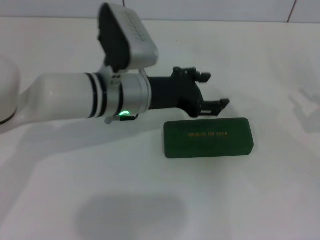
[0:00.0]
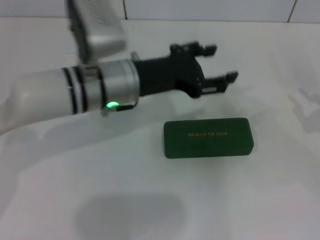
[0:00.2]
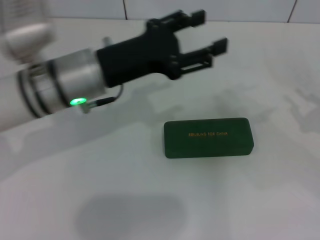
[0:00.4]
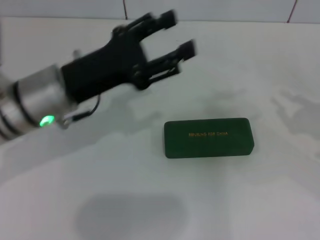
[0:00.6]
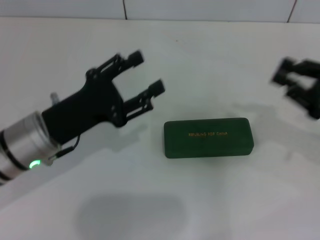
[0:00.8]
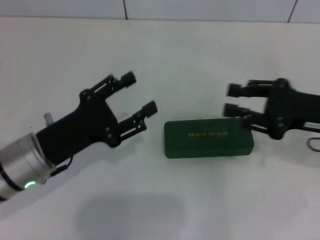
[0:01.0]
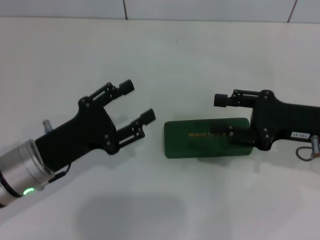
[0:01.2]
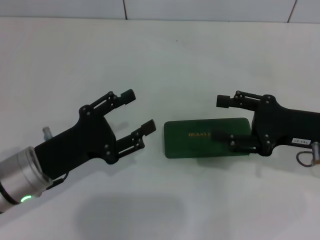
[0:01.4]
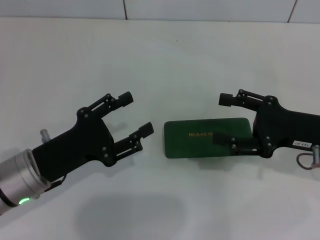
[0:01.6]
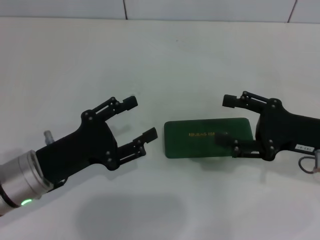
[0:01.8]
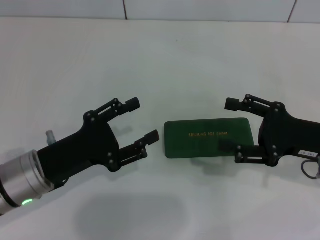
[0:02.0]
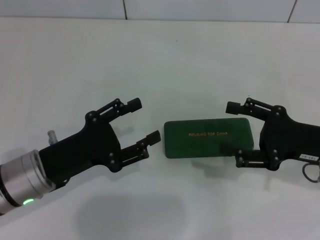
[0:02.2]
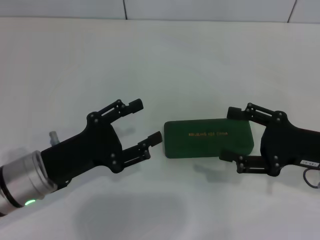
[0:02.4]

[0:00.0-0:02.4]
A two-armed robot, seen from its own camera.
0:00.0 to 0:01.2: The left gripper heads to the left, backward and downward, covering about 15 cm, while the right gripper shifts some 10 cm to the left.
0:01.2 to 0:02.4: The right gripper opens up.

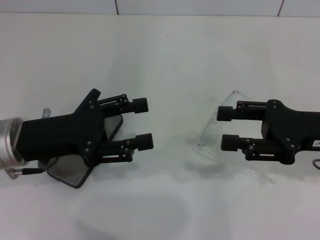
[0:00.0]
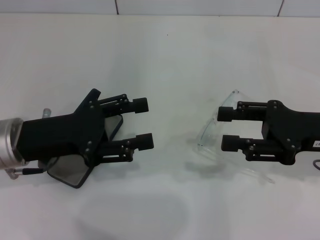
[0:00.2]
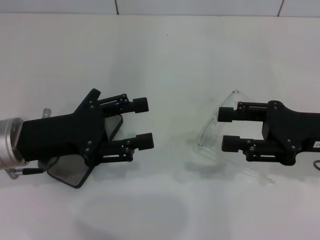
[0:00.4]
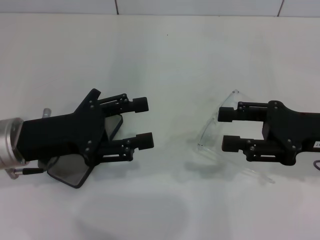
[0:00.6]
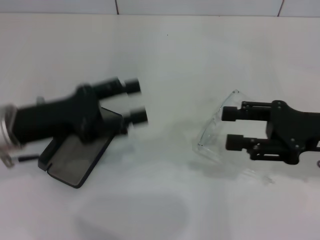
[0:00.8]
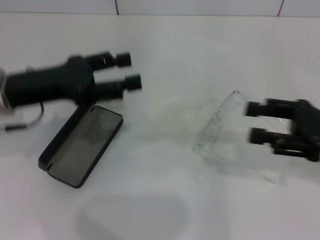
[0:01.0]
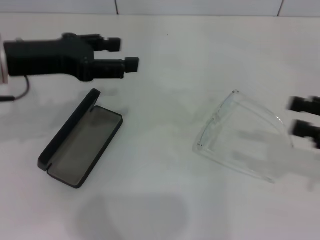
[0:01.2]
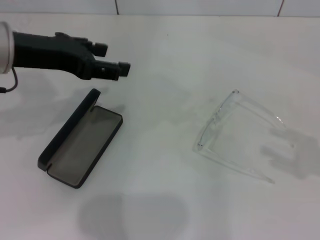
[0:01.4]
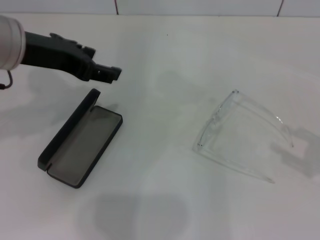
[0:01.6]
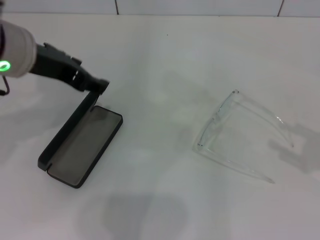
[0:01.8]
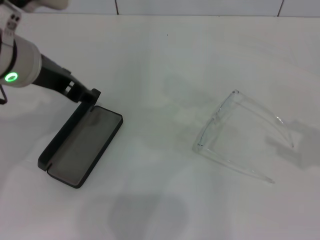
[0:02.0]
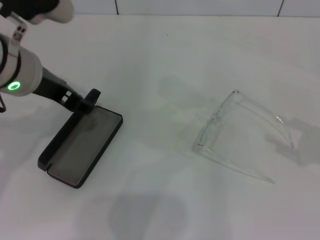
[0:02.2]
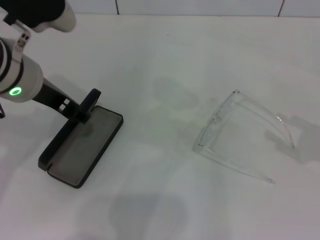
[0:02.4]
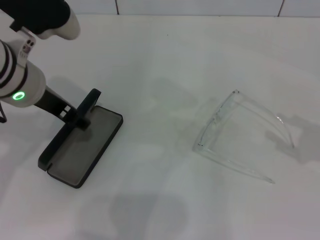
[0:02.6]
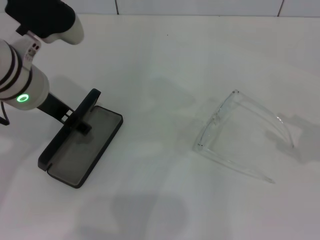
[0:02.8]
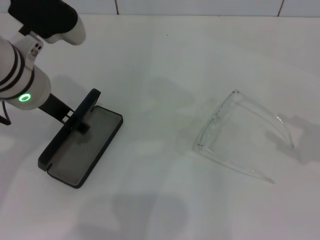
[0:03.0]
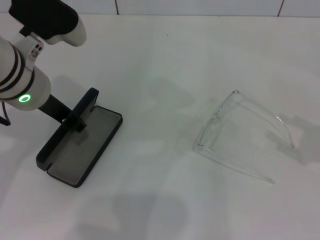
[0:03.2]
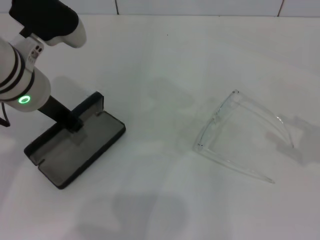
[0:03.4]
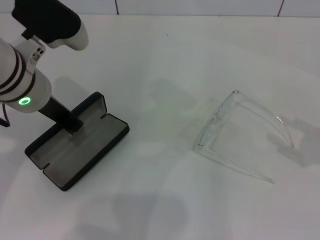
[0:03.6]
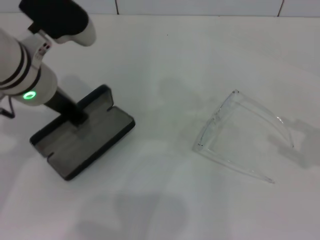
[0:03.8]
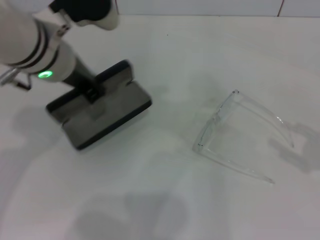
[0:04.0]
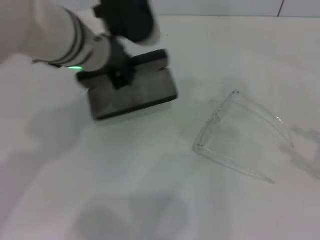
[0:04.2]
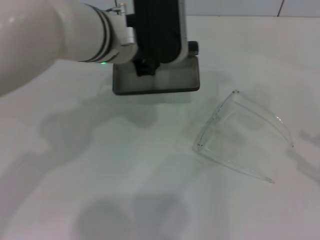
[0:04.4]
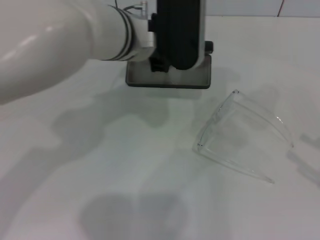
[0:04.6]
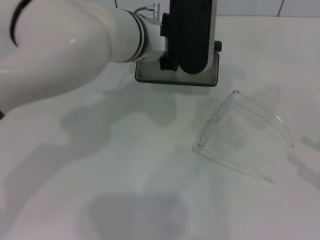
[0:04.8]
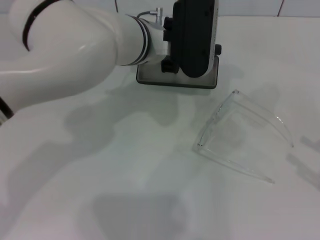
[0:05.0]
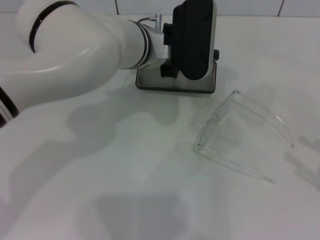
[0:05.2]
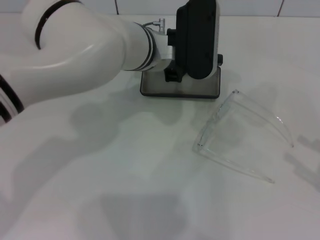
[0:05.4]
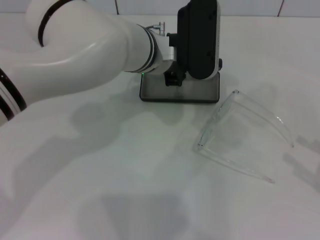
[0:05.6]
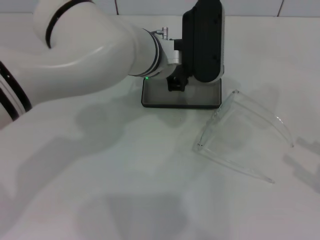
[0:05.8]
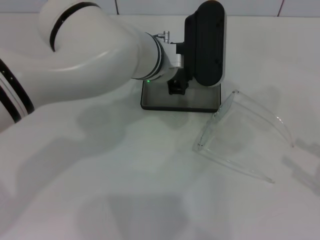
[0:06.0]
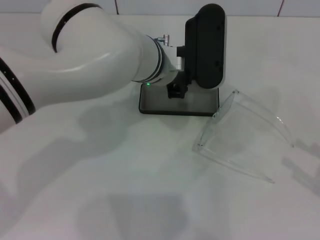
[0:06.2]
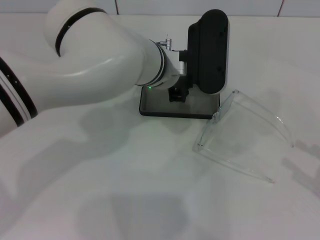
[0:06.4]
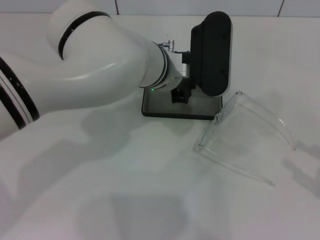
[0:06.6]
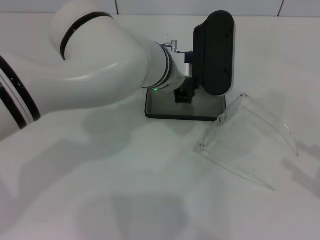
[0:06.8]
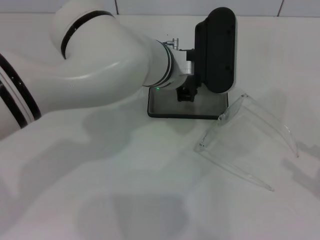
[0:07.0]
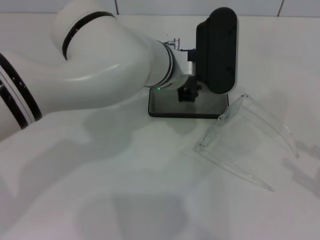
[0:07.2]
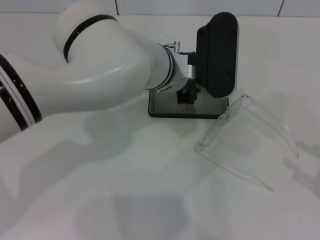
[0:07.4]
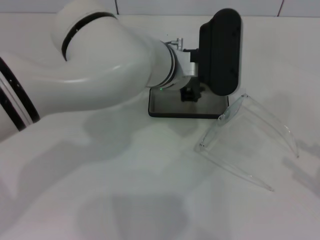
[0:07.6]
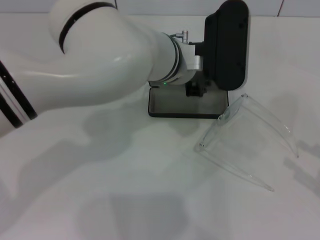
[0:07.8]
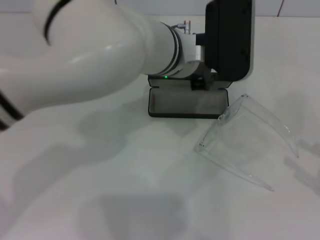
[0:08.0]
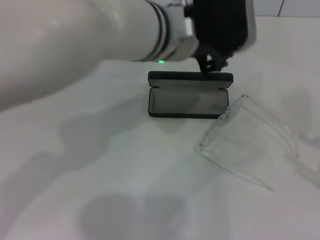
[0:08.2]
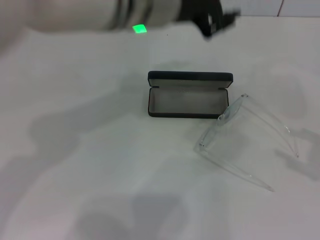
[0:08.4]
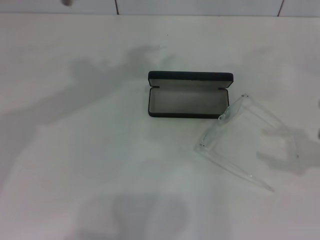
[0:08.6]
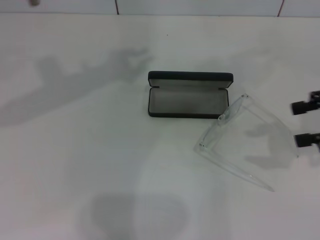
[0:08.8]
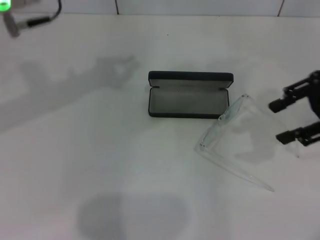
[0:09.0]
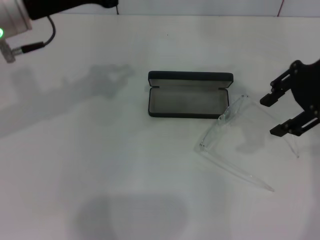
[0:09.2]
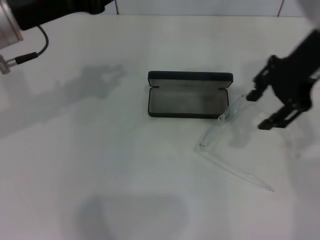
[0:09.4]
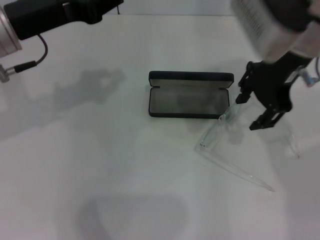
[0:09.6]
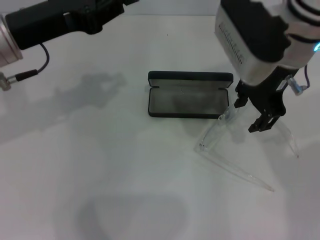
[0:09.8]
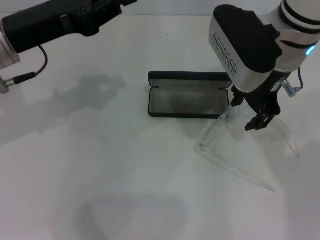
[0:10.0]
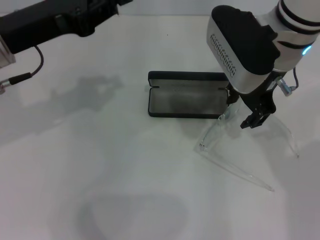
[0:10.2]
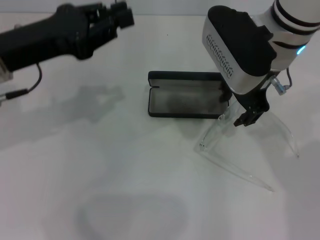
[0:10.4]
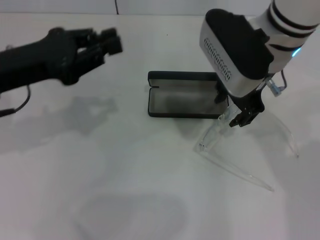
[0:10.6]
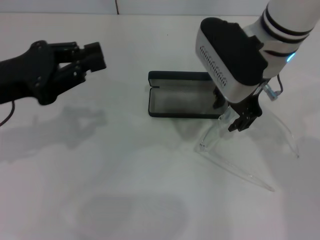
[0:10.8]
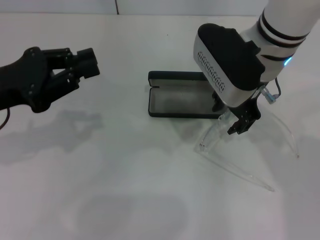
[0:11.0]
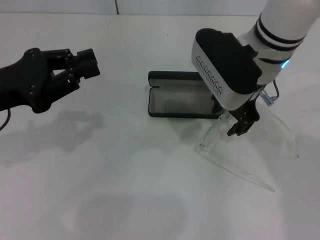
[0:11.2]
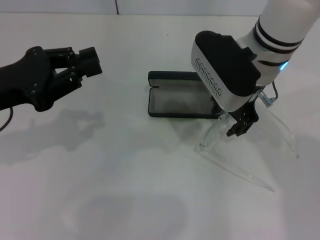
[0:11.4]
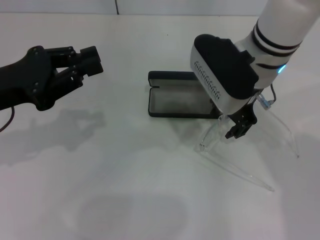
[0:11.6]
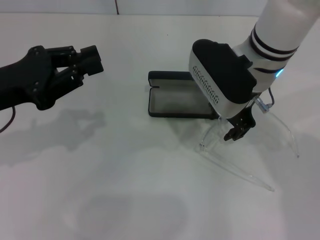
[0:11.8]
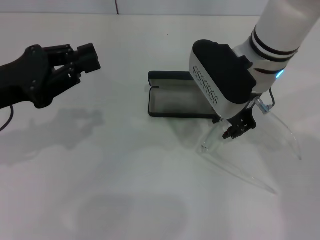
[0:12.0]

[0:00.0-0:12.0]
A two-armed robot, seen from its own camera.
Step, 0:00.0 to 0:03.2: Grab the glasses case with your left hand.
Step, 0:03.4 to 0:07.4: Place the glasses case in the center of the table with your left hand.
0:00.0 to 0:01.6: The left gripper travels upward and forward by some 15 cm, while the right gripper shifts roughly 15 cm to the right and backward.
0:01.6 to 0:03.0: The left gripper is displaced downward by about 5 cm.
0:03.0 to 0:04.4: The right gripper moves backward, some 5 cm. Meanwhile the left gripper travels to the right by approximately 10 cm, and closes.
0:04.4 to 0:06.0: The left gripper shifts roughly 10 cm downward and to the right.
0:06.0 to 0:07.6: The grippers stay close to where they were, moving slightly.
0:07.6 to 0:09.0: The left gripper shifts about 20 cm to the left and upward; the right gripper heads forward, upward and to the left, covering approximately 25 cm.
0:09.0 to 0:10.4: The left gripper travels downward by roughly 5 cm; the right gripper is displaced to the left by approximately 15 cm.
0:10.4 to 0:12.0: The left gripper changes place by some 5 cm.

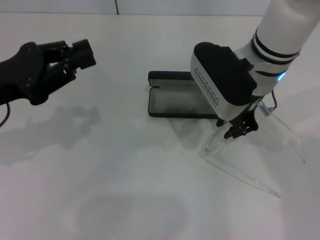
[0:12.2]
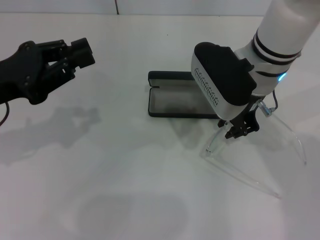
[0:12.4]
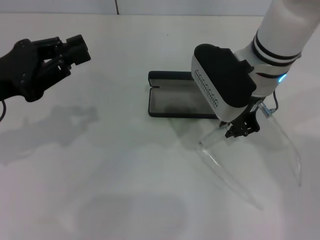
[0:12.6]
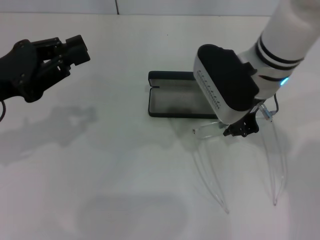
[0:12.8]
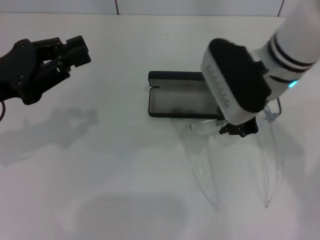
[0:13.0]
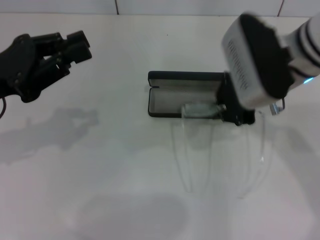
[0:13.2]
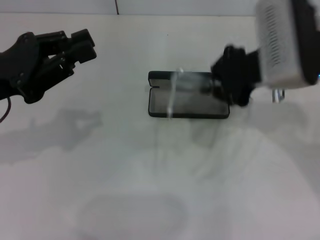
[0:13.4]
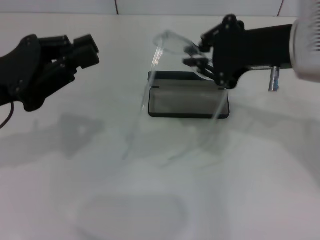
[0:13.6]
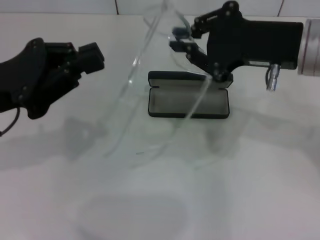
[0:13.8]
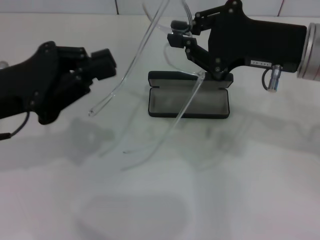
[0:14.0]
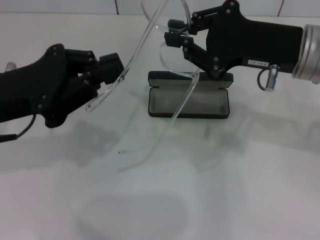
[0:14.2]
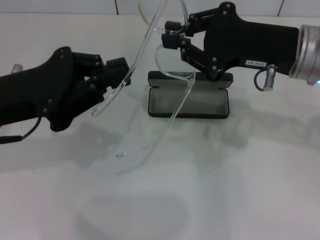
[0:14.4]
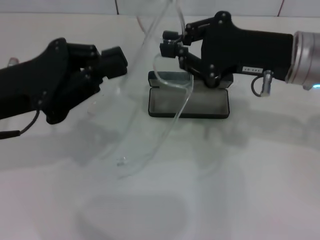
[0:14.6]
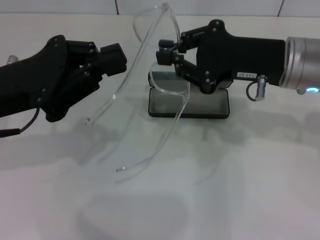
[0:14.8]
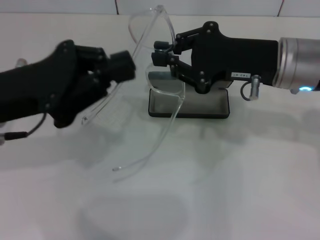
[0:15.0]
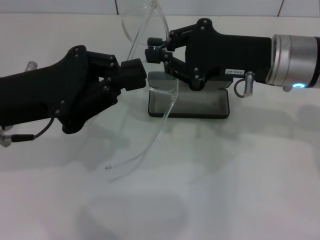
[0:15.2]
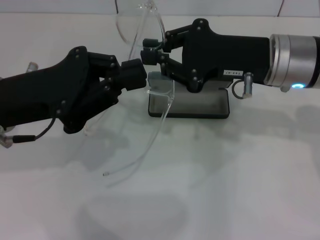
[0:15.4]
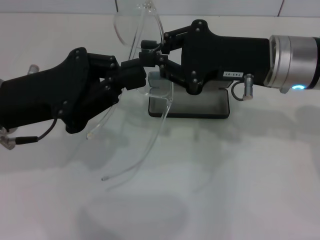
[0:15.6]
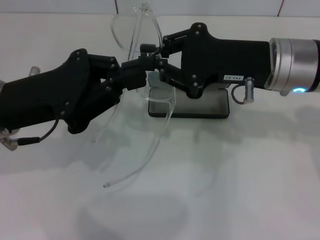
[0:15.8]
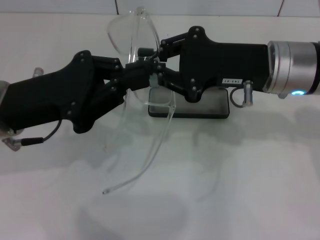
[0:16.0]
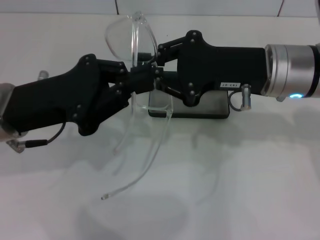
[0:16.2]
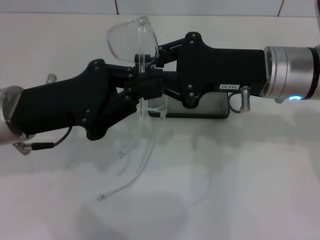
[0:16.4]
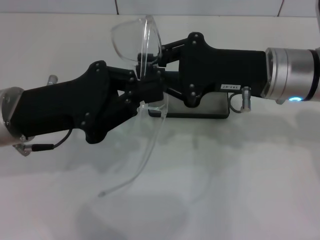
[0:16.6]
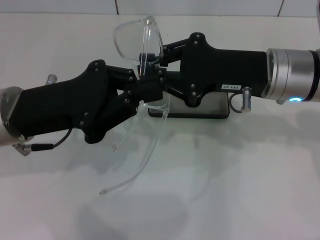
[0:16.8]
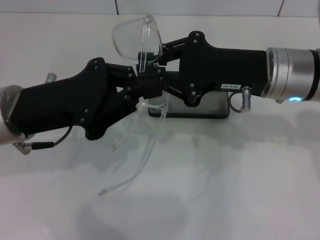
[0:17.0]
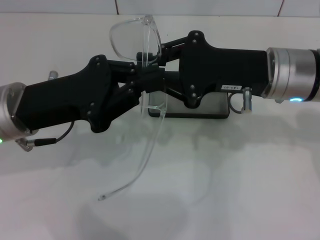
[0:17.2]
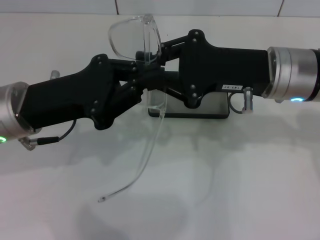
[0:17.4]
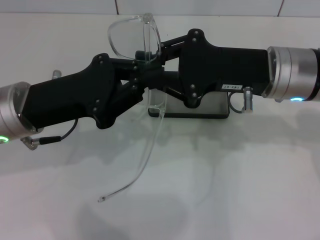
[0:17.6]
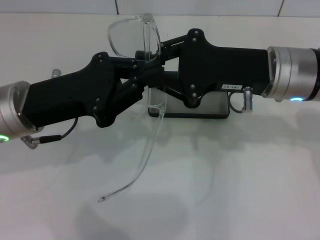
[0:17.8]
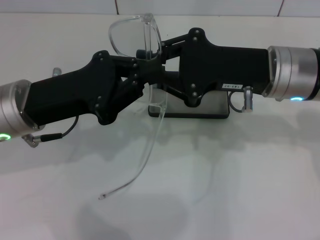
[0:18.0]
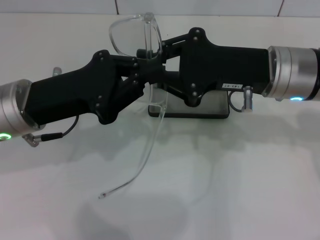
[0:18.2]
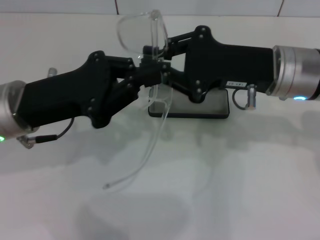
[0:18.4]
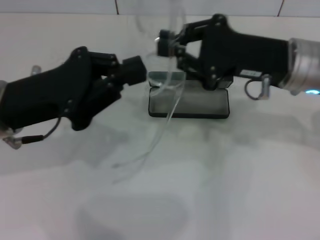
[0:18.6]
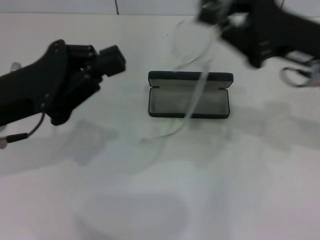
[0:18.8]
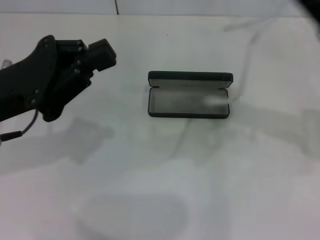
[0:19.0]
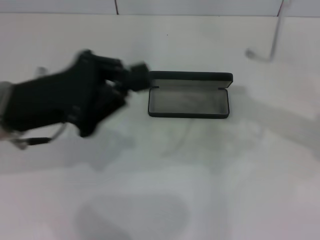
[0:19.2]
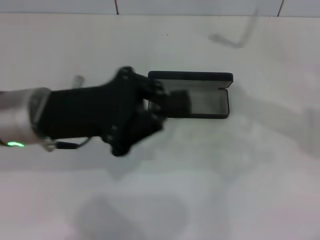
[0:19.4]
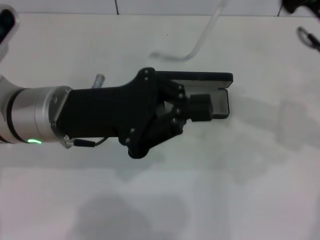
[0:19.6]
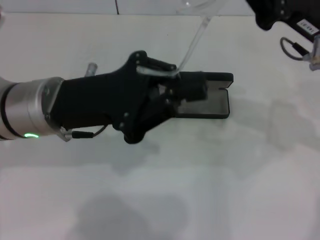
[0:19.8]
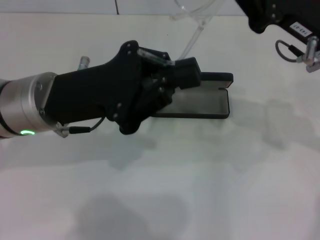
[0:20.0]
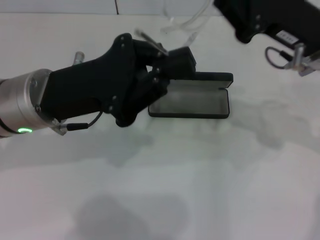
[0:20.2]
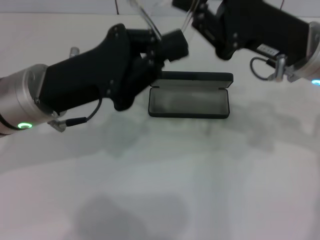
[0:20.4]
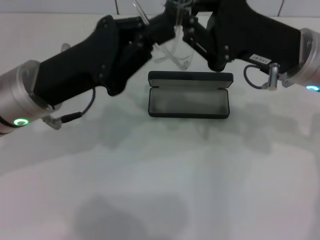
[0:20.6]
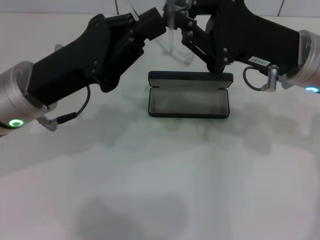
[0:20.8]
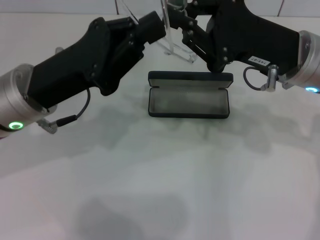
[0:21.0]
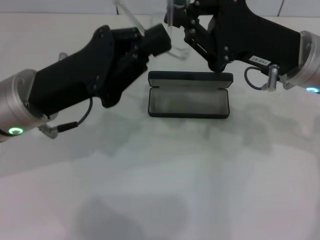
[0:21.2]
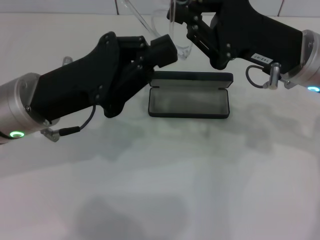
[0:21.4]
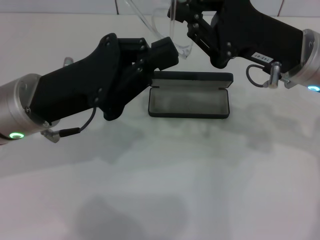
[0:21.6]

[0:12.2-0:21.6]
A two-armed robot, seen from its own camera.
0:12.2 to 0:13.8: The right gripper moves to the right, backward and upward, approximately 10 cm, and closes.
0:13.8 to 0:15.4: The right gripper changes place by approximately 5 cm.
0:15.4 to 0:18.4: There are only small adjustments of the grippers.
